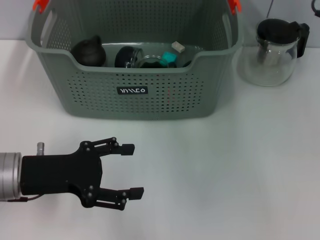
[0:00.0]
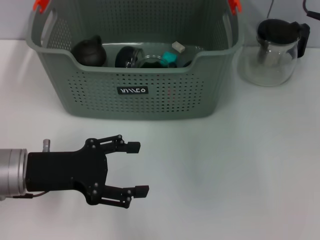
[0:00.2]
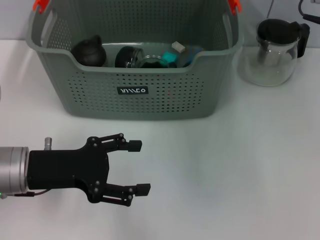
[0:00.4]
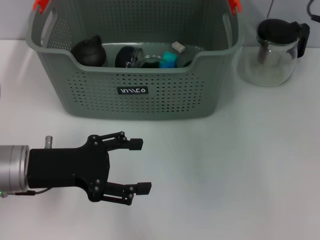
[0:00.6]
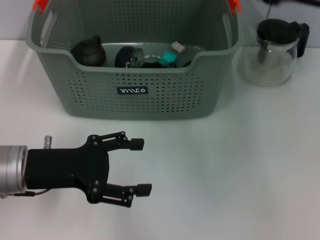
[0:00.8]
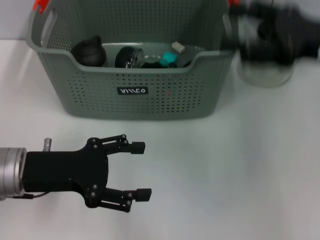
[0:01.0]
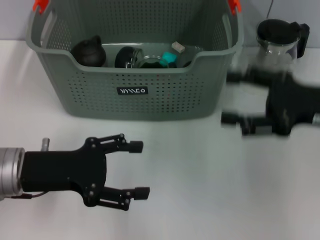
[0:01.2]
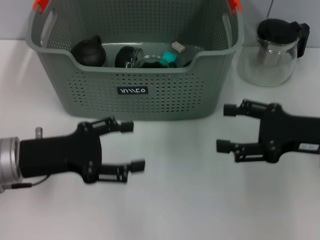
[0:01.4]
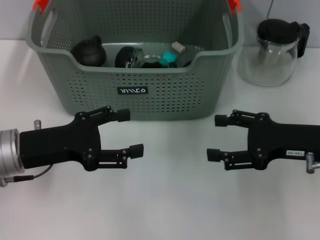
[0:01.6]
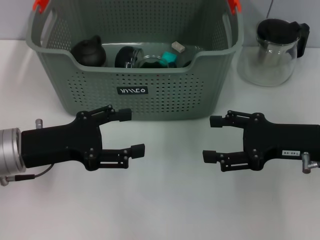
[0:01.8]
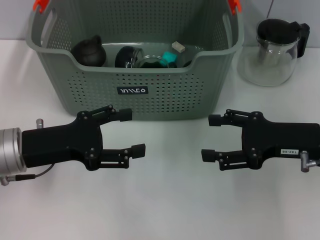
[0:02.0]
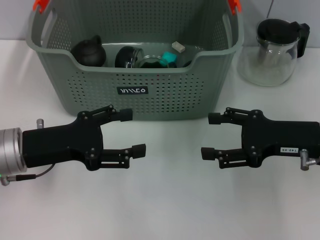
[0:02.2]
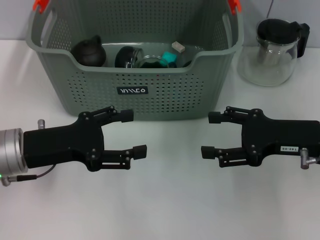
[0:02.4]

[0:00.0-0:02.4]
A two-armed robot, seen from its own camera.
Task of the whole recording: pick up the teacup on the table and place it into the storage bin, pick up the block on the table and place it into the storage bin.
0:00.0 to 0:01.2: The right gripper moves downward and backward, about 15 cm, and opens.
